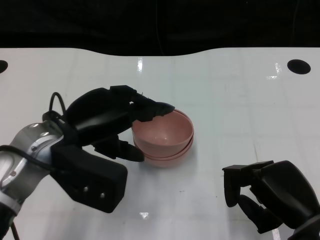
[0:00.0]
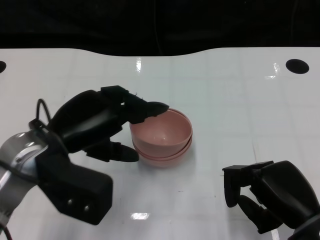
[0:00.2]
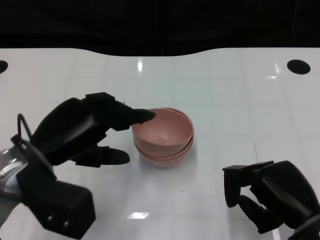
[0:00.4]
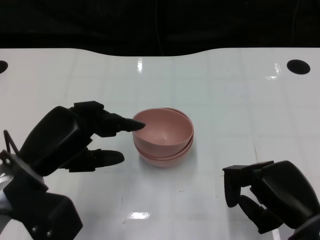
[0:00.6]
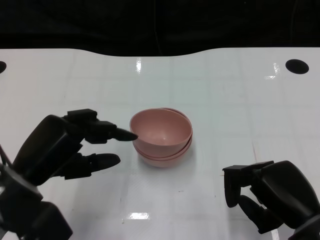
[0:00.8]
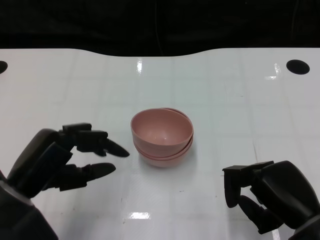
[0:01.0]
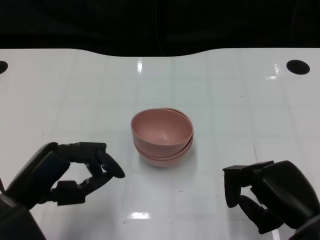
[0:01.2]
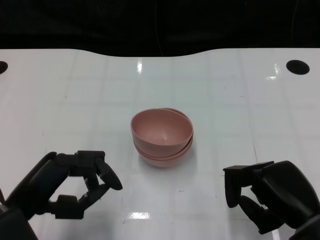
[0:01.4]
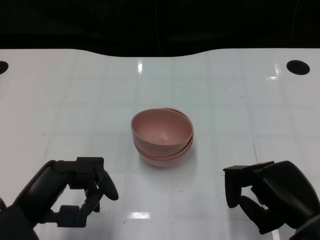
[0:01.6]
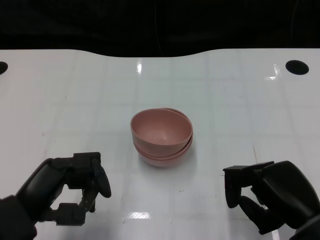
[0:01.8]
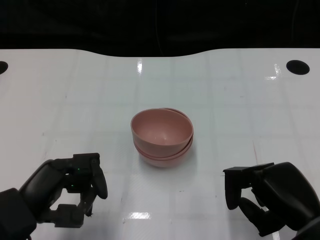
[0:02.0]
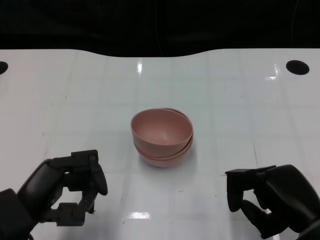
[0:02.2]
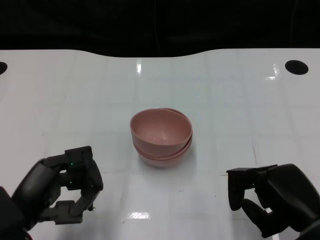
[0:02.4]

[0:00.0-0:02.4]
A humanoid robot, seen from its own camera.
Task of the whole recording: Pick up the bowl on one side of the table and place it on top of the middle bowl, then pick up the bowl on the other side of the table and place it on top of the middle bowls.
0:00.0 to 0:01.2: The left hand shifts about 10 cm backward, to the left and downward.

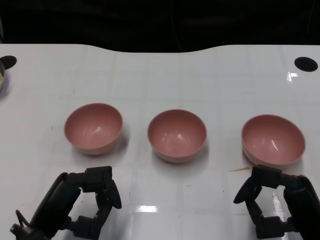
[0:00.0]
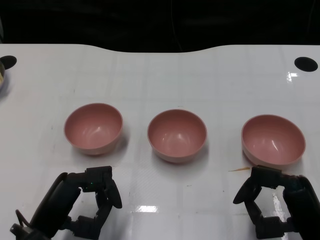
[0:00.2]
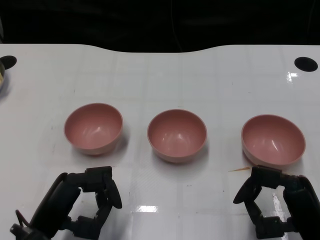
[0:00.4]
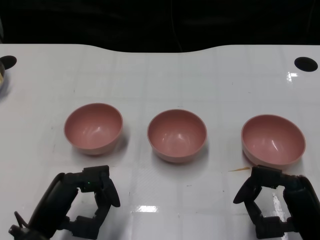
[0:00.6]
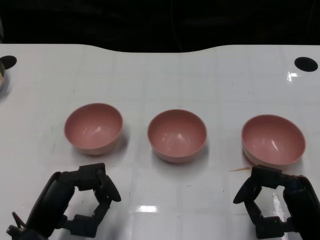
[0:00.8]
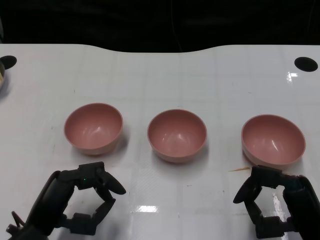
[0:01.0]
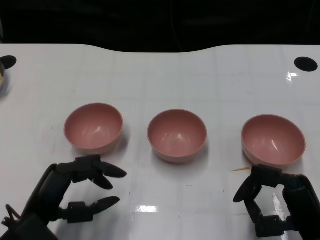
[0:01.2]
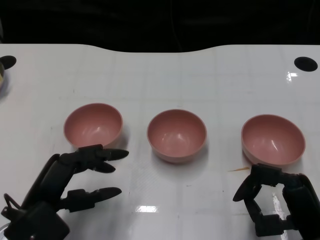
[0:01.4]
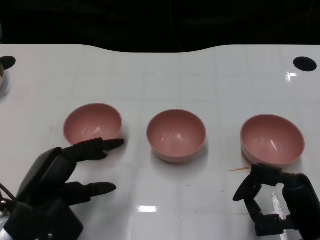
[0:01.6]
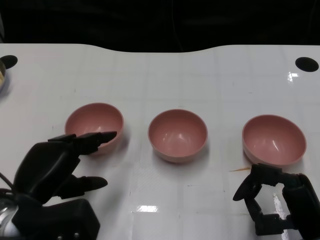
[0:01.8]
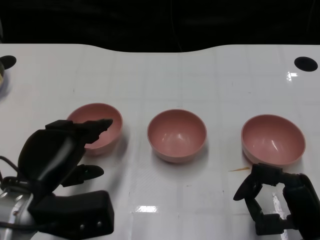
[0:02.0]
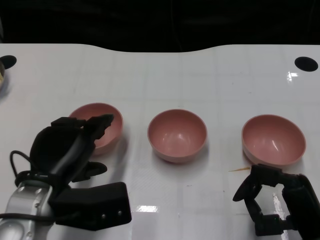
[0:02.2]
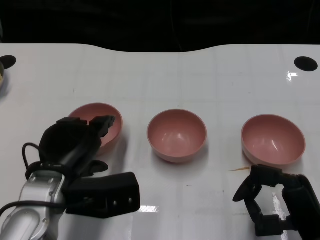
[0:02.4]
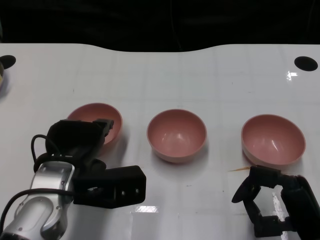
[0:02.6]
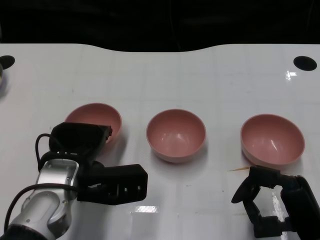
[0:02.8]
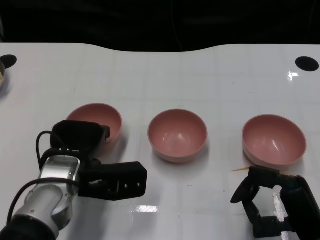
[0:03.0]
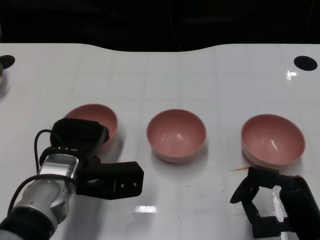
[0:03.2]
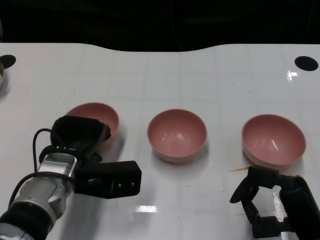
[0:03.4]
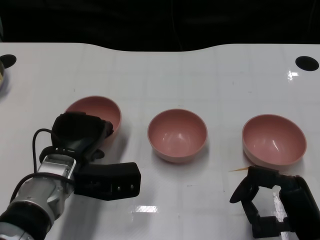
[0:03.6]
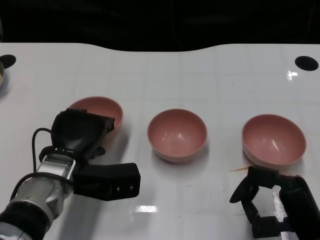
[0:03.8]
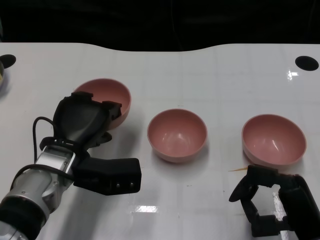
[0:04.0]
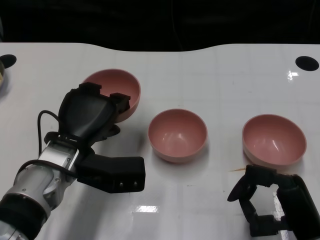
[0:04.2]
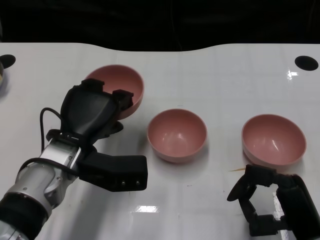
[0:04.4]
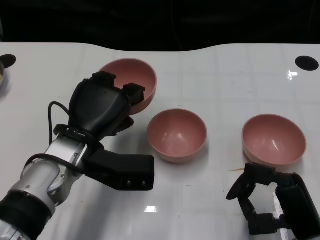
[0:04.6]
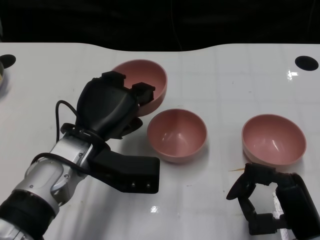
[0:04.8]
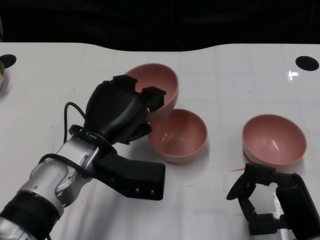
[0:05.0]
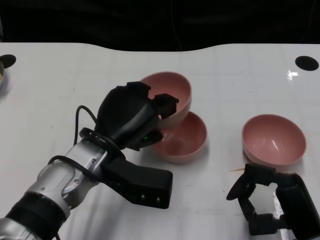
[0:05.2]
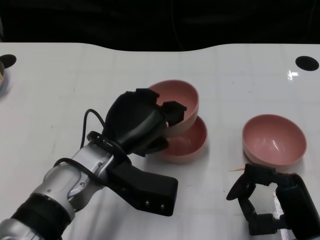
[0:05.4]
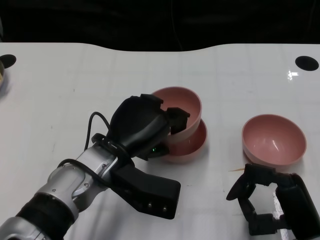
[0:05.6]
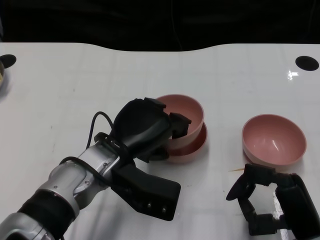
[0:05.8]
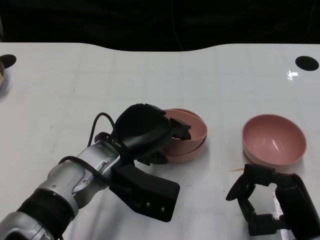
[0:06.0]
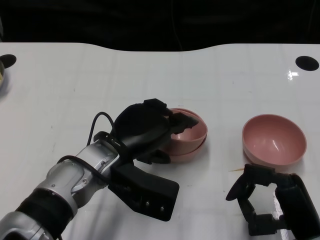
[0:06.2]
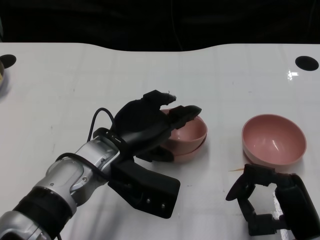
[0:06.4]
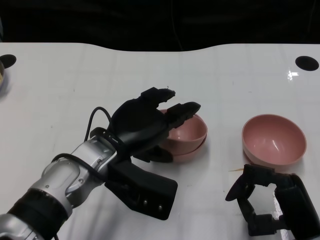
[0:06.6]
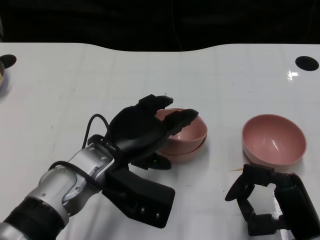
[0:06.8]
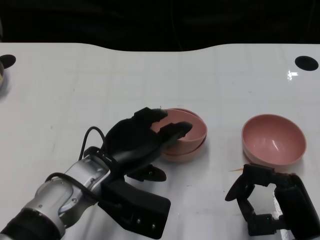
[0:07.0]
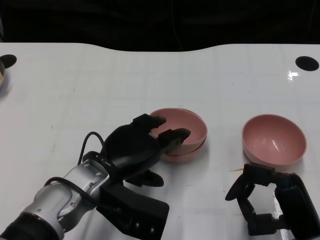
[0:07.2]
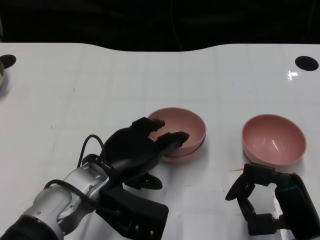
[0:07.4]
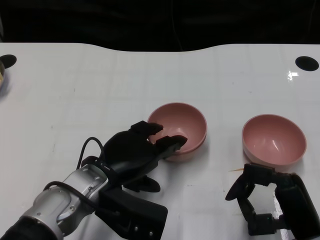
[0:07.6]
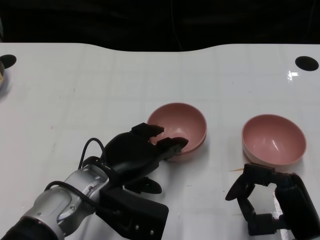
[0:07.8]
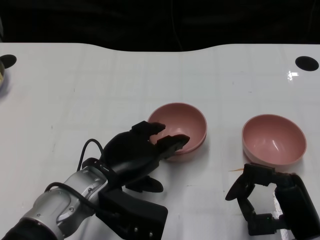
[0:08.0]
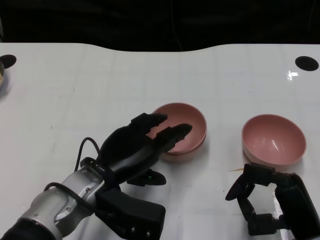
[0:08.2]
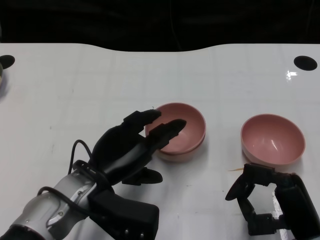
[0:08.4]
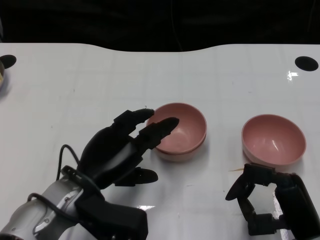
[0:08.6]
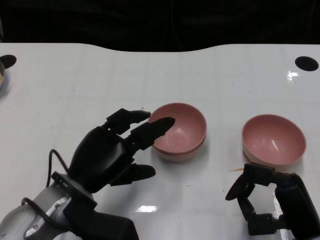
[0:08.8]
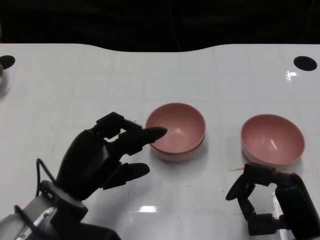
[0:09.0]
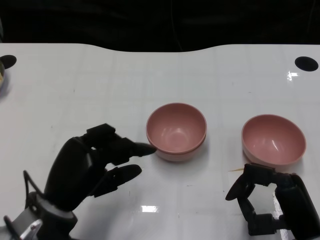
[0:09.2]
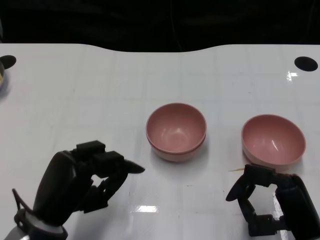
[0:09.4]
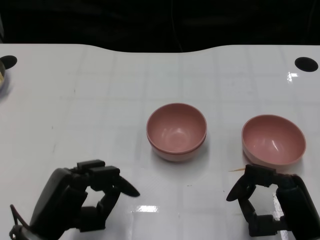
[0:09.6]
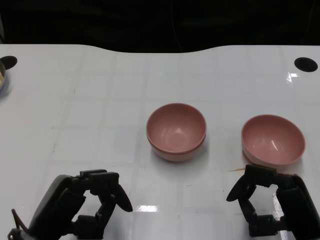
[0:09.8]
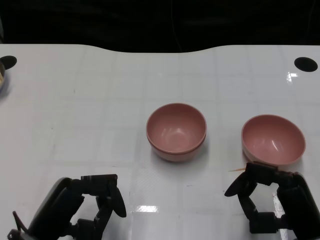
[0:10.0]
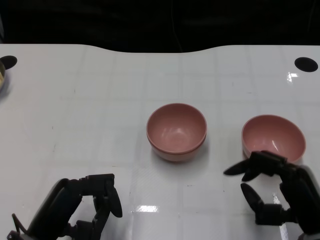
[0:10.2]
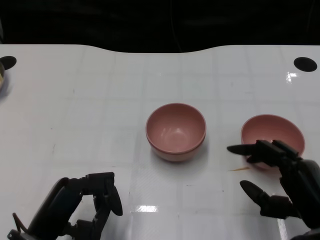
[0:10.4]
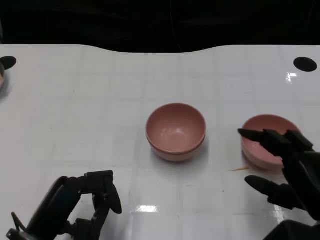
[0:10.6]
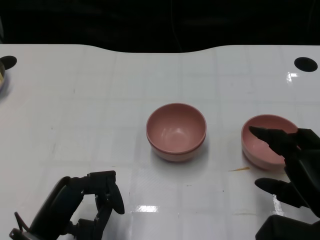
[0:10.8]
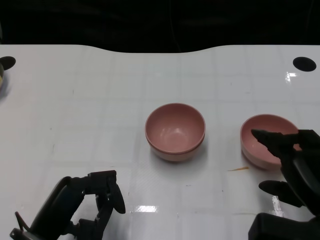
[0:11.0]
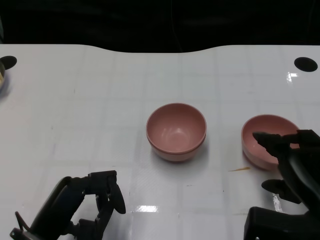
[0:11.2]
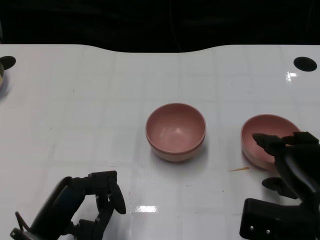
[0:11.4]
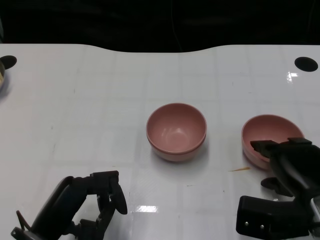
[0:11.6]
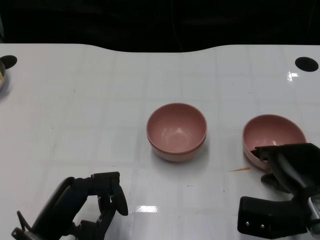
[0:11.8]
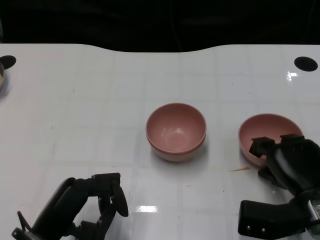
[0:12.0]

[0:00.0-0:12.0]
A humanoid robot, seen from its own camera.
Task of the whole recording: Pick up the bowl on one side of the table and place it on top of the middle bowl, then pick up the bowl on the other side of the table and place it on top of the middle bowls.
Step, 0:01.2 to 0:03.4: Grasp the bowl on the left with the left gripper.
Step, 0:03.8 to 0:08.6: Place the bowl on the left onto the bowl in the middle with left gripper.
Step, 0:09.0 to 0:12.0: Grasp the bowl on the right with the right gripper.
0:01.6 to 0:03.0: The left hand travels forward and to the right by roughly 10 cm.
0:04.4 to 0:06.0: The left hand moves to the right, roughly 5 cm.
0:06.0 to 0:07.6: The hands move only a little.
0:07.6 to 0:09.0: The left hand ends up roughly 5 cm from where it was.
0:09.0 to 0:10.4: The left hand moves backward, some 5 cm.
0:10.4 to 0:12.0: The right hand heads forward, covering about 5 cm.

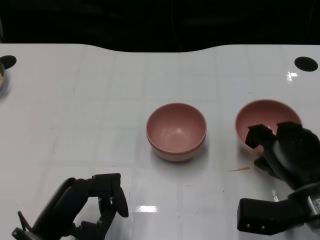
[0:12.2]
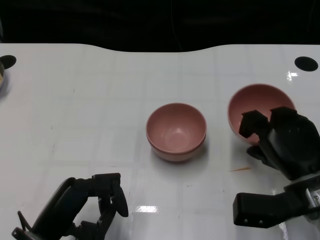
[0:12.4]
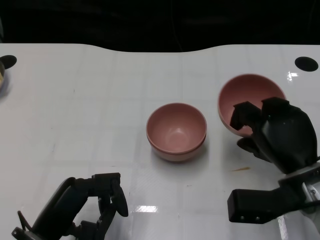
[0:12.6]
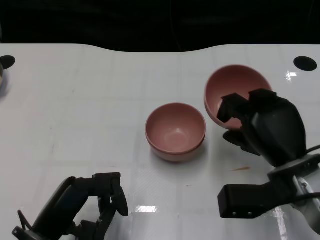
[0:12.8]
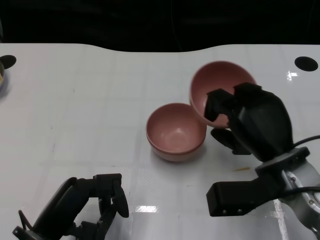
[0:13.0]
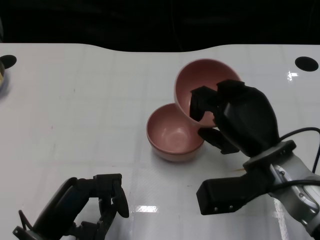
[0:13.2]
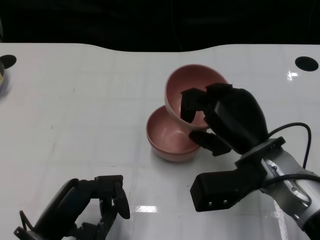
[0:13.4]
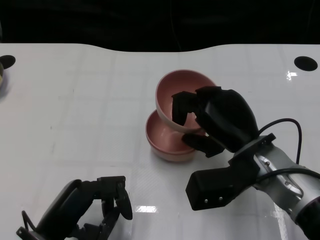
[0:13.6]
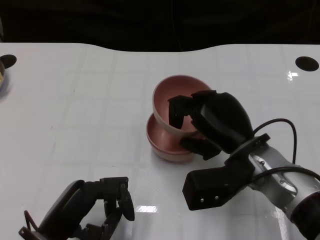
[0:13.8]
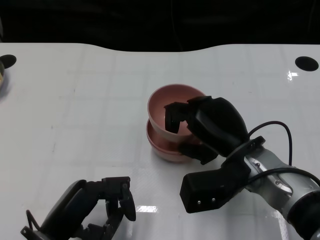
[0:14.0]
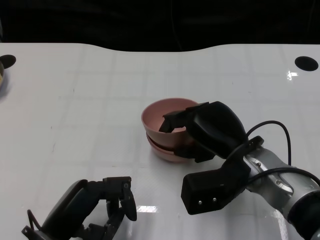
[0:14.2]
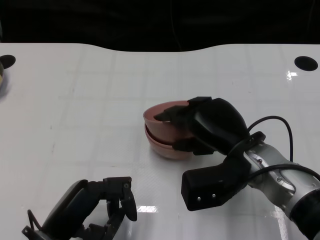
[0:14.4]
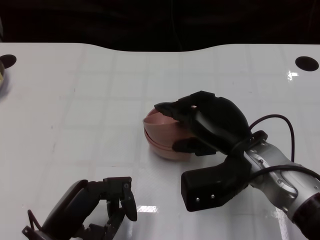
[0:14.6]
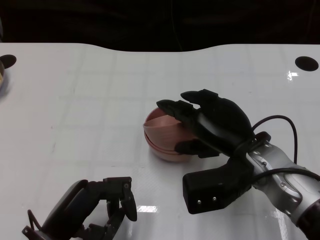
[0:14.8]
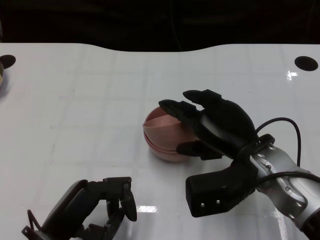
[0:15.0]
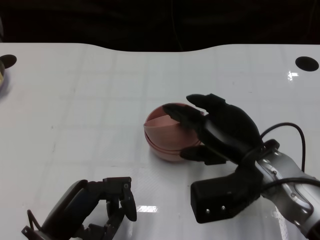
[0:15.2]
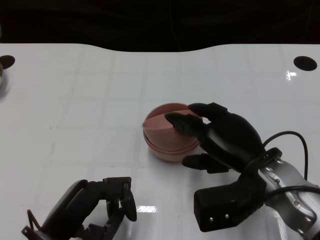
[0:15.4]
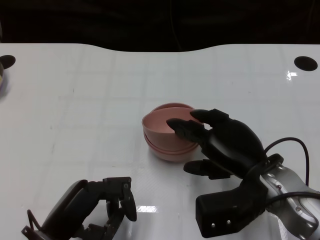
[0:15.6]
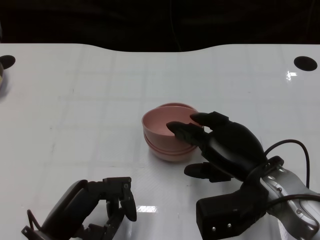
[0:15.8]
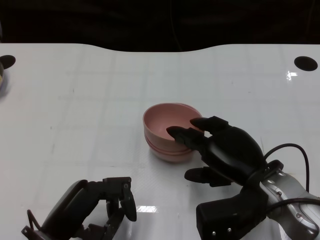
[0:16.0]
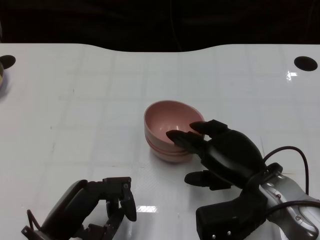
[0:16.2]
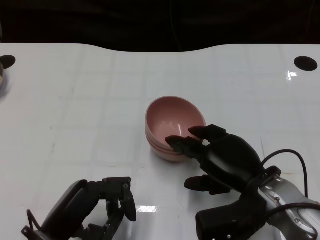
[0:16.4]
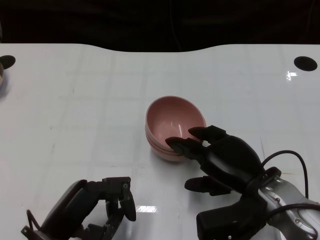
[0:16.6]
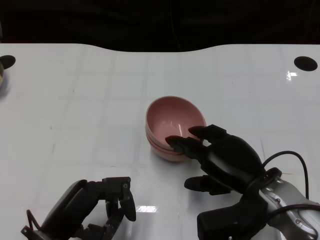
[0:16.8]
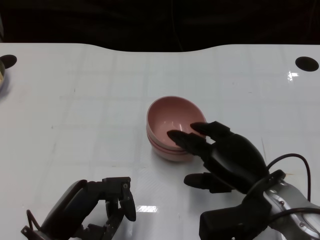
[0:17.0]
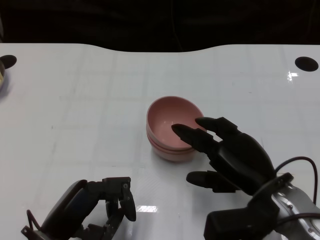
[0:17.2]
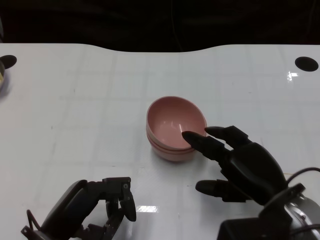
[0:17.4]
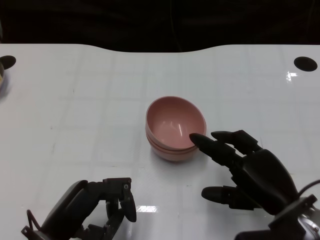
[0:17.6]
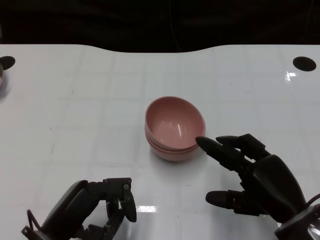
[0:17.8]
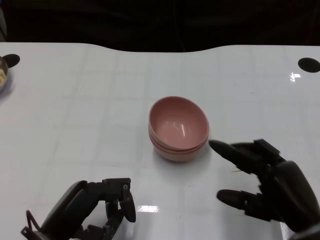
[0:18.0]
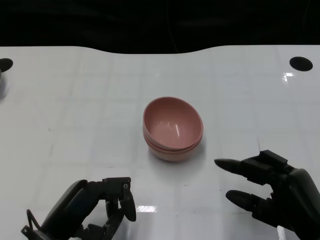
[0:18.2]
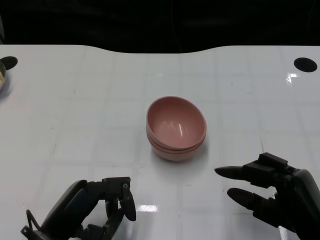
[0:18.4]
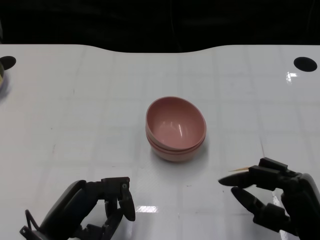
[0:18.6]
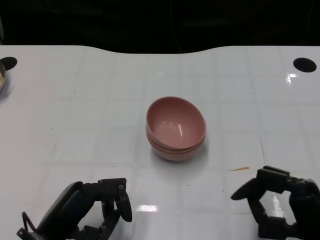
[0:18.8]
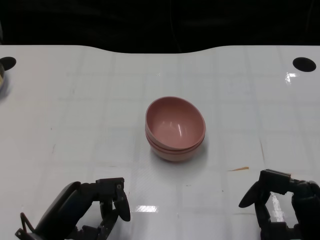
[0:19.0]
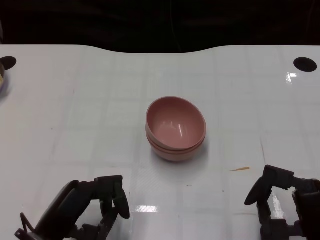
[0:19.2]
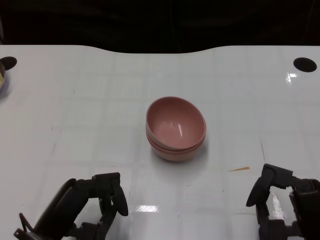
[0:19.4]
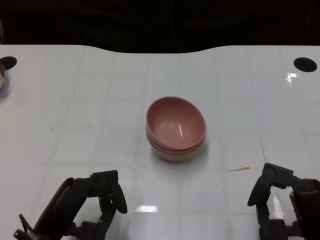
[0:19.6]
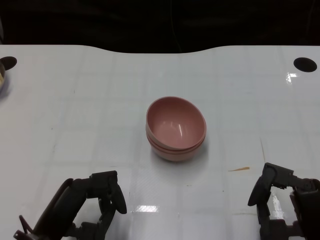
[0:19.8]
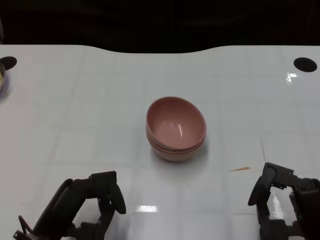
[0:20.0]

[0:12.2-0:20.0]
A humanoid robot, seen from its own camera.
Task of the whole recording: Pick up the bowl on one side of the table and place it on top of the middle bowl, then pick up the bowl on the other side of the table and place it on top of the middle bowls.
Step, 0:12.2 to 0:17.2: Place the bowl on the right onto the bowl in the middle with right gripper.
0:12.2 to 0:13.8: The right hand goes about 10 cm to the left and upward.
0:13.8 to 0:16.8: The hands make only small movements.
0:16.8 to 0:18.4: The right hand is displaced backward and to the right by approximately 10 cm.
